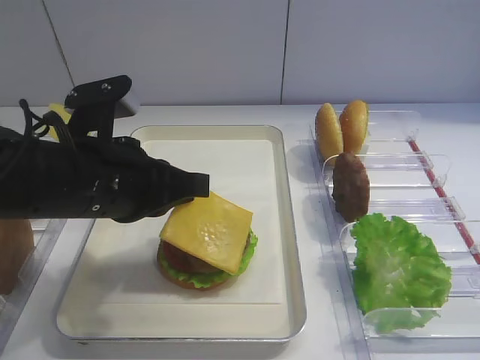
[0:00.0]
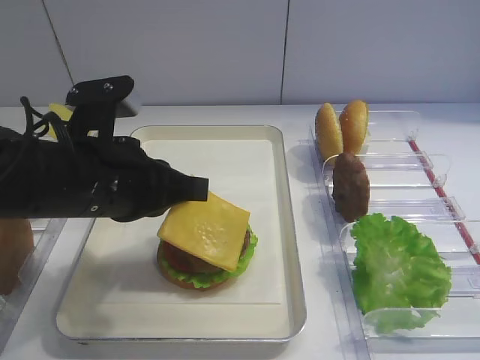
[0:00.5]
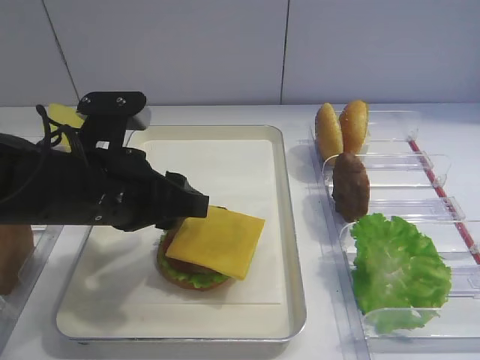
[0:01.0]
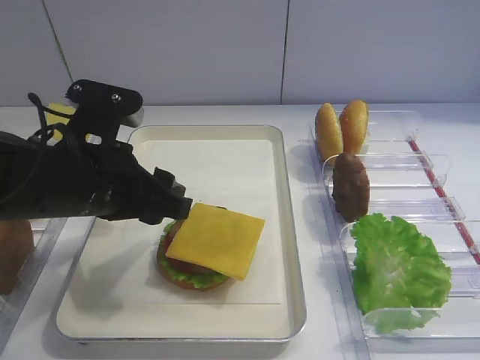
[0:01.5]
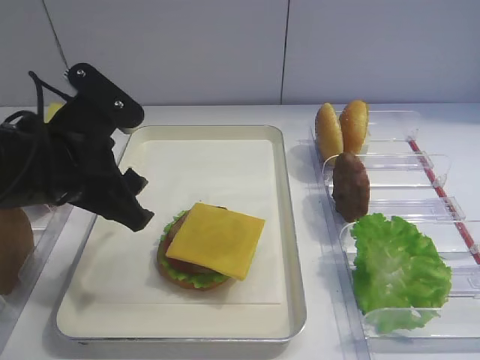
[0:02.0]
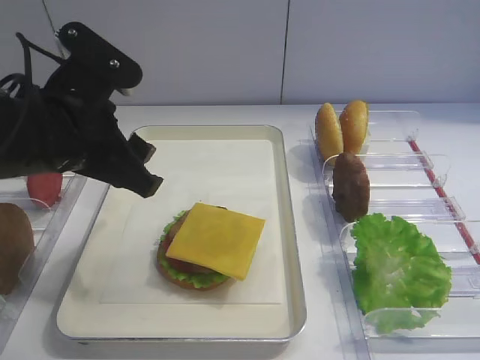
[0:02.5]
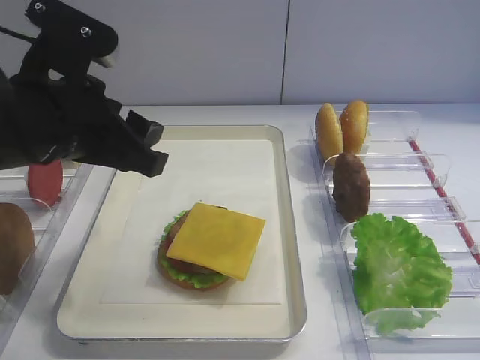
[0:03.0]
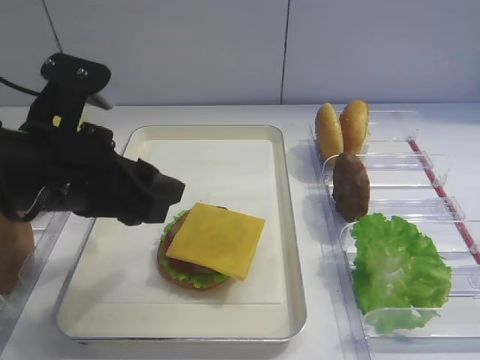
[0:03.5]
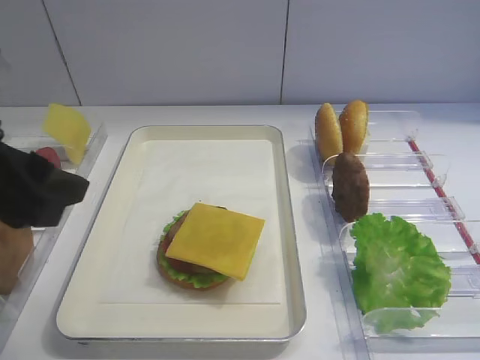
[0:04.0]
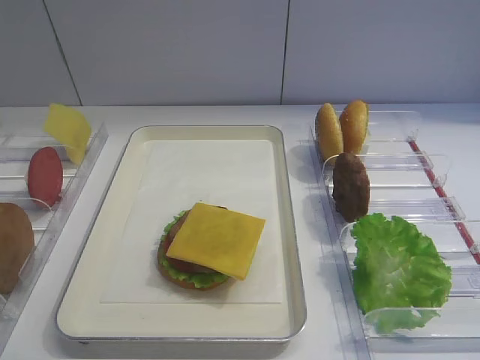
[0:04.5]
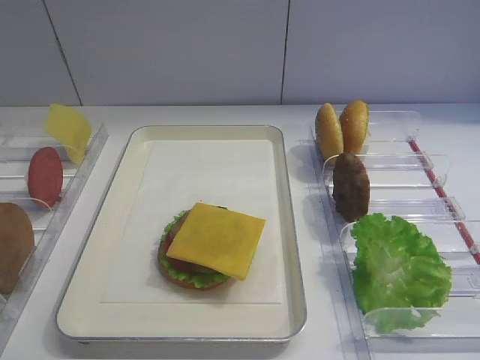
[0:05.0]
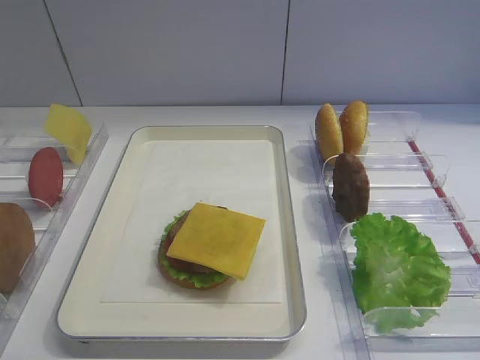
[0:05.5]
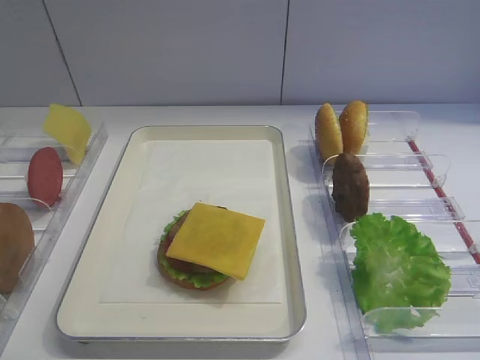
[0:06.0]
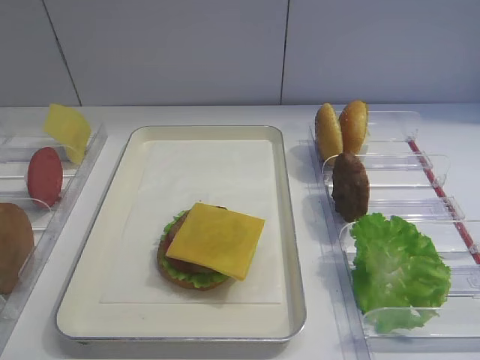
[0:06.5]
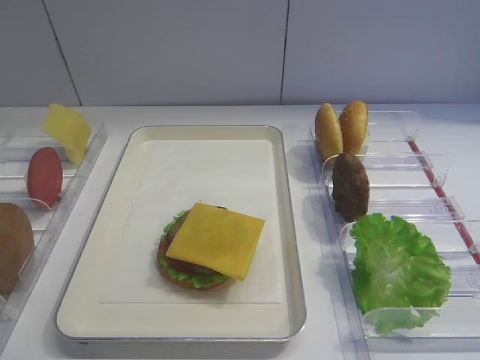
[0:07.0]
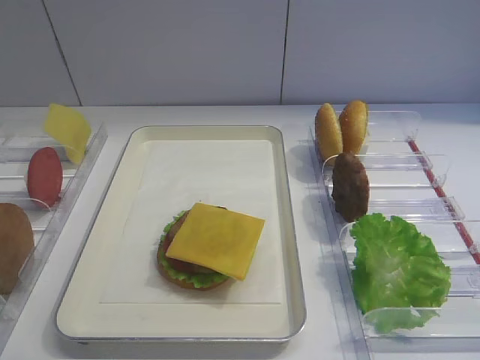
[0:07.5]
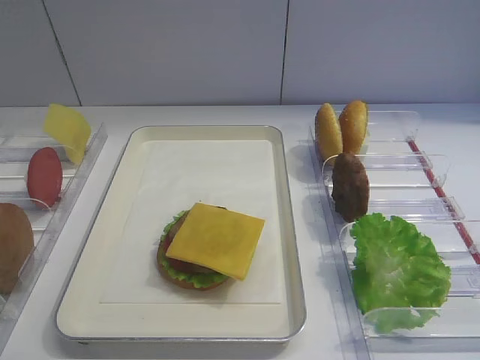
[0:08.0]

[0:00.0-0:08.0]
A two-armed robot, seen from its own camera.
Step, 0:00.0 to 0:02.5: Place the cheese slice on the cutlet with the left gripper.
0:00.0 to 0:02.0: The left gripper opens its fingers.
0:02.0 to 0:04.0: The left gripper heads backward, to the left and upward, covering roughly 10 cm.
0:04.0 to 0:06.0: The left gripper travels backward and to the left by some 20 cm.
0:06.0 to 0:08.0: Both grippers stay put.

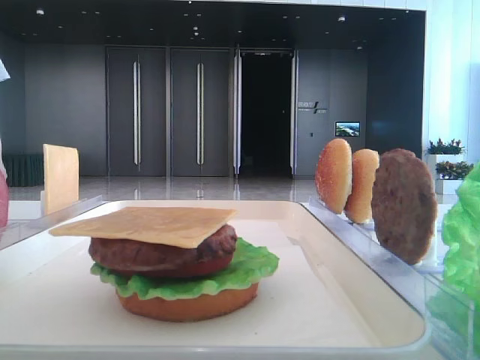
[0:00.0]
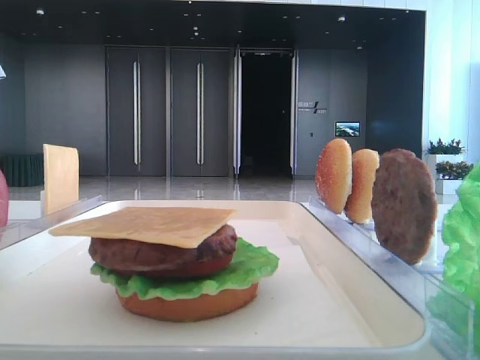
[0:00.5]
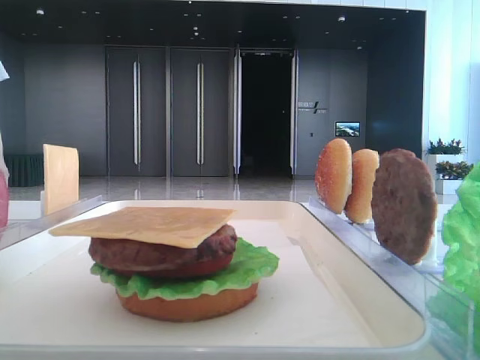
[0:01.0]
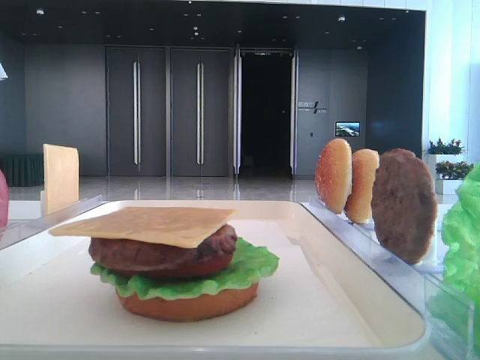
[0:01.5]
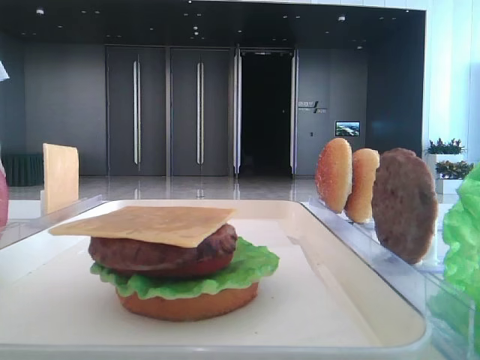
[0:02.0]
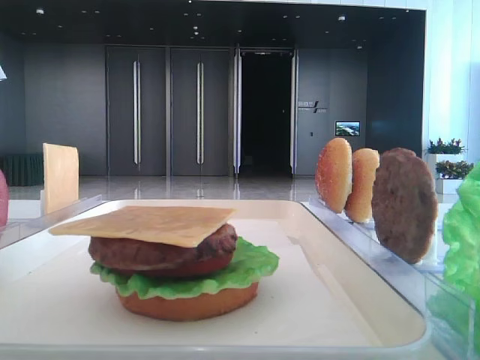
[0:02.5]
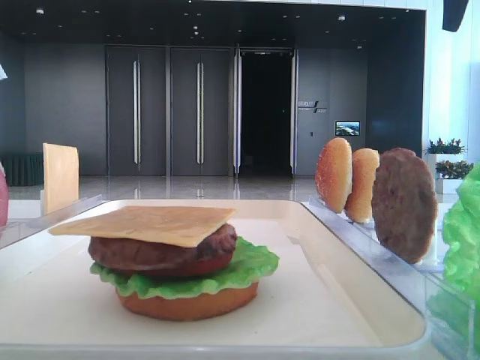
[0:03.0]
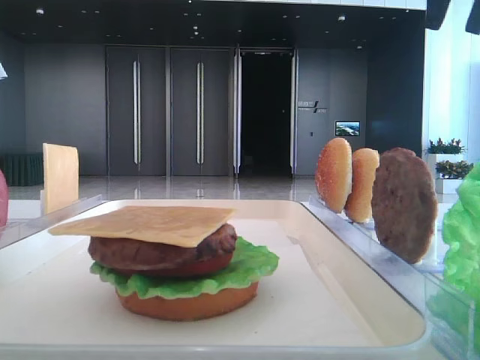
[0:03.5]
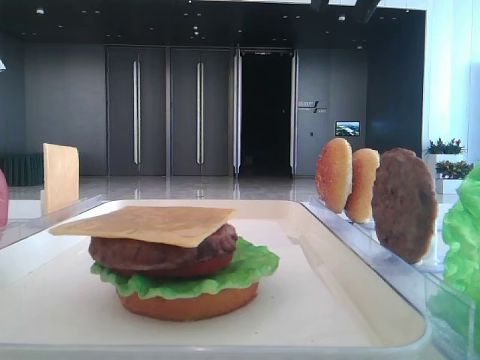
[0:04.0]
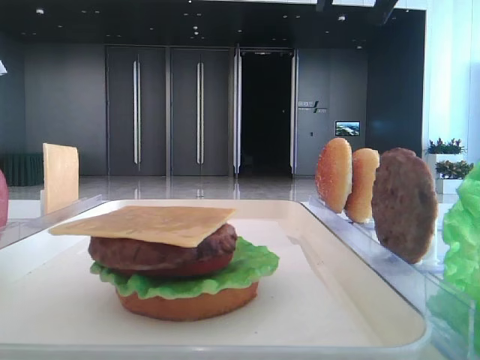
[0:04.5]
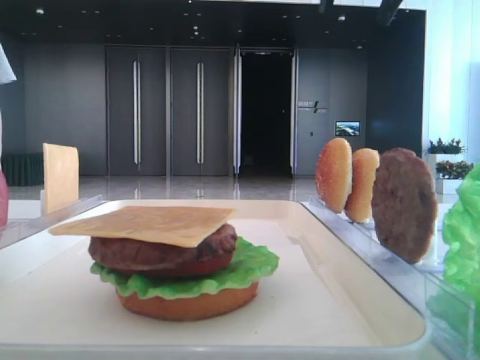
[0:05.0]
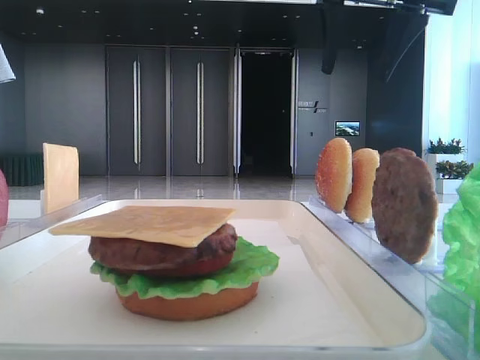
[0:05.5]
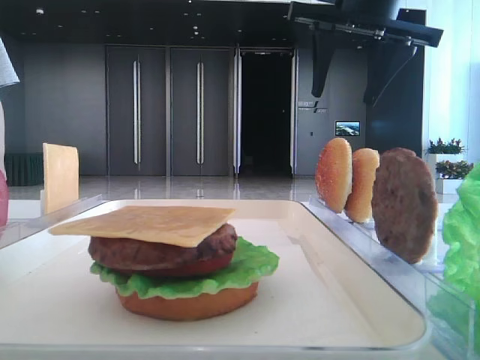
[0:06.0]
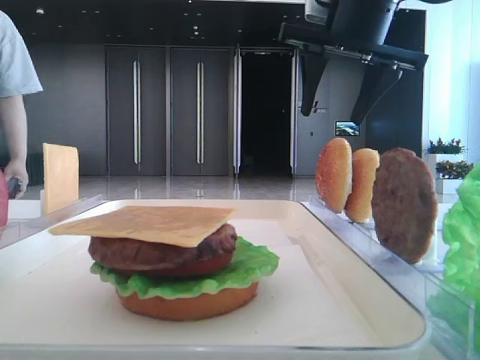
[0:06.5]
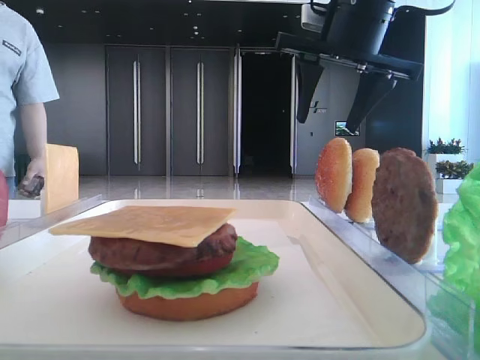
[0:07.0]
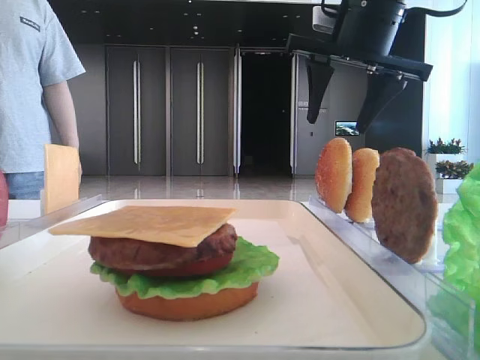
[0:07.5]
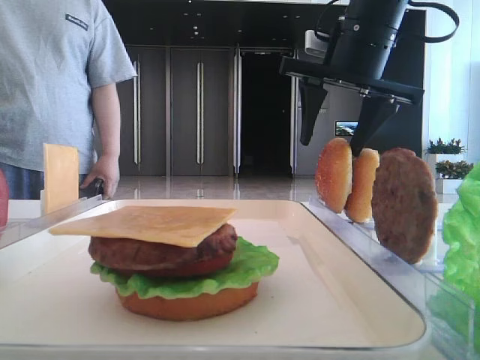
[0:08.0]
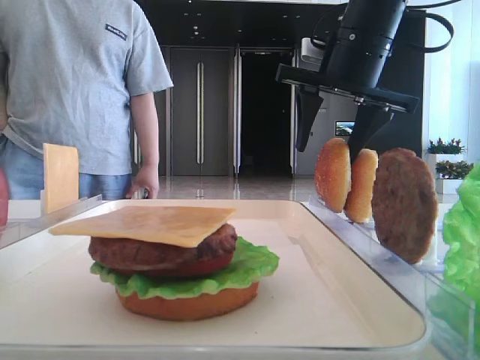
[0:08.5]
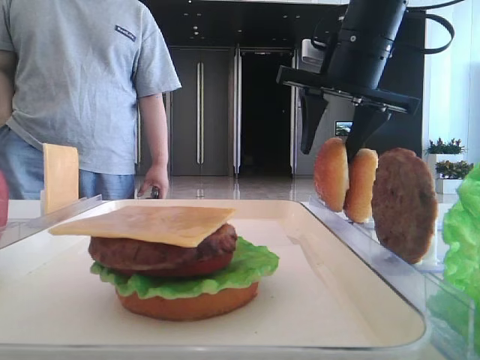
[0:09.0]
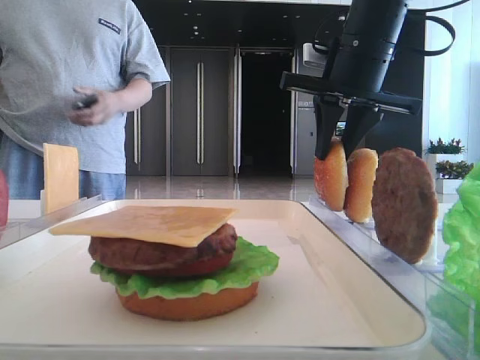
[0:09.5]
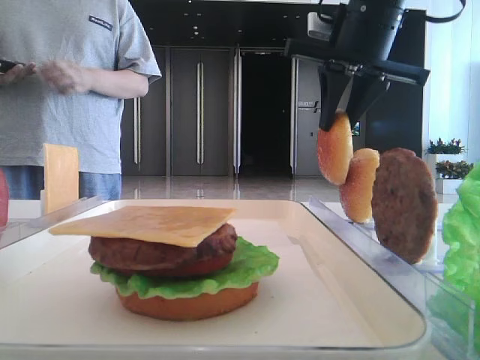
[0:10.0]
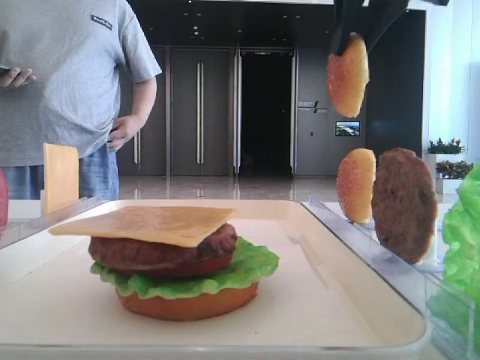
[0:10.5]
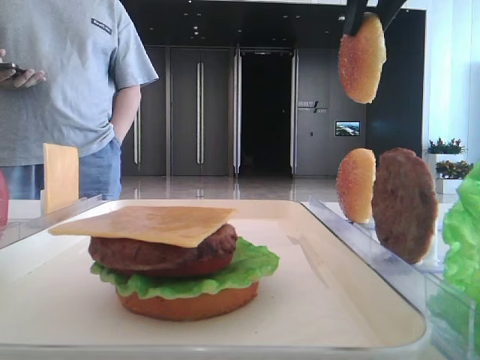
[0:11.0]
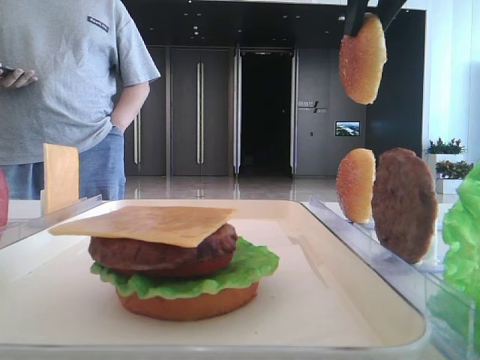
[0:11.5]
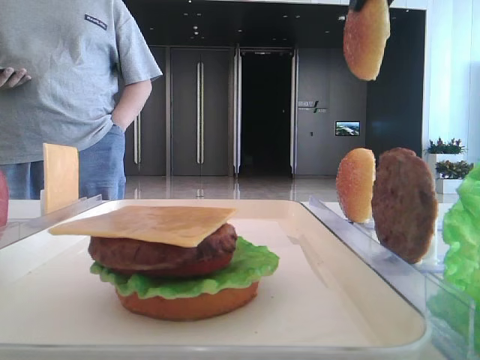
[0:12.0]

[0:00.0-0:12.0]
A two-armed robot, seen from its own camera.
Step, 0:00.0 to 0:09.5: Pick up the top bread slice with the right hand.
0:04.0 to 0:06.0: The right gripper is displaced downward and forward by about 10 cm.
0:06.0 to 0:08.0: The right gripper goes approximately 5 cm downward.
0:08.0 to 0:10.0: The right gripper closes its fingers.
0:10.0 to 0:12.0: The right gripper travels upward and backward by about 15 cm.

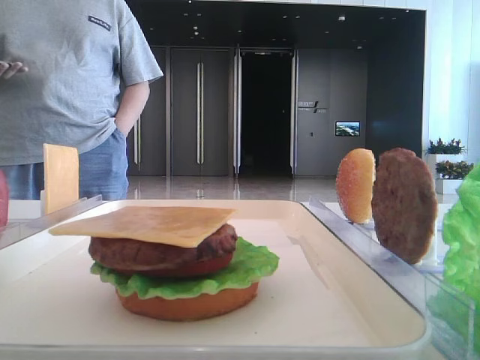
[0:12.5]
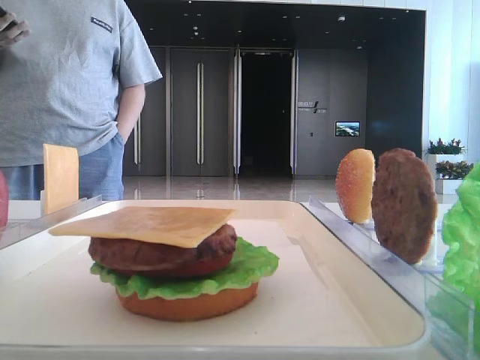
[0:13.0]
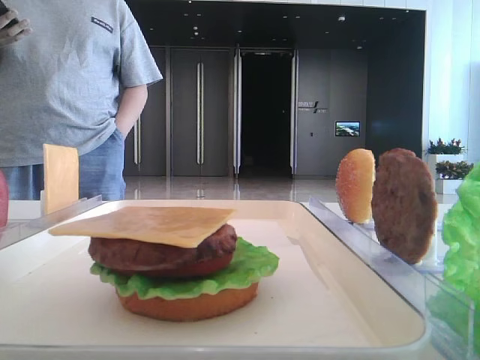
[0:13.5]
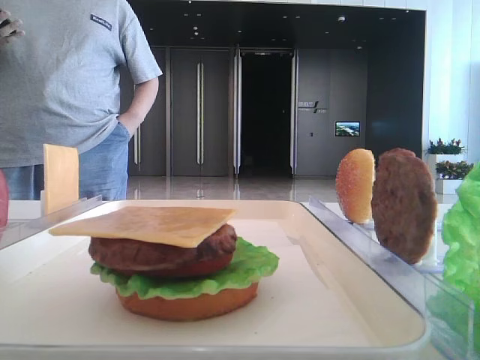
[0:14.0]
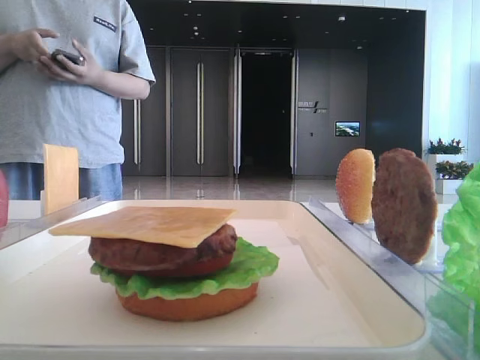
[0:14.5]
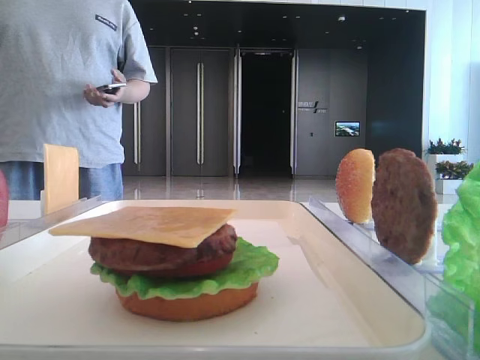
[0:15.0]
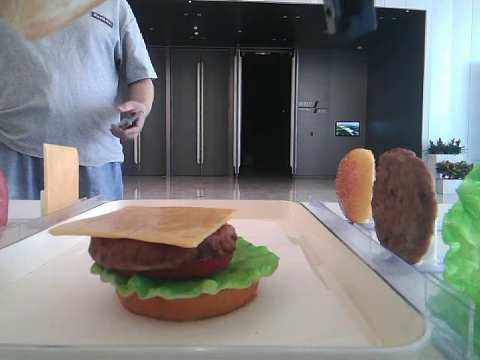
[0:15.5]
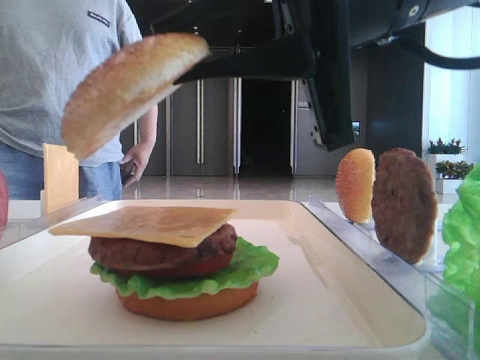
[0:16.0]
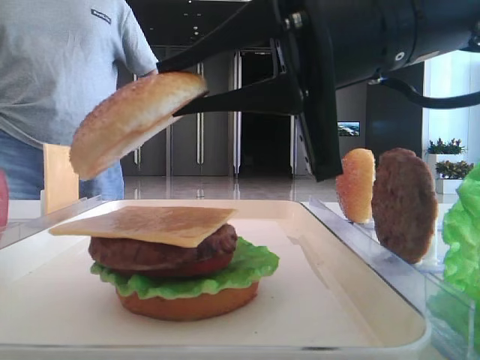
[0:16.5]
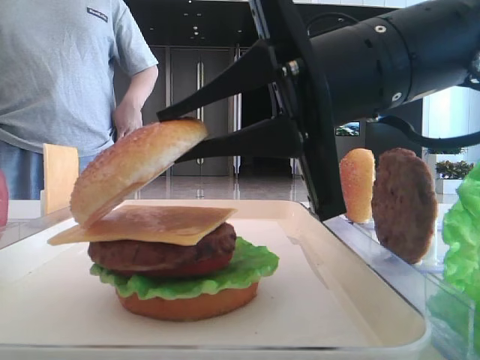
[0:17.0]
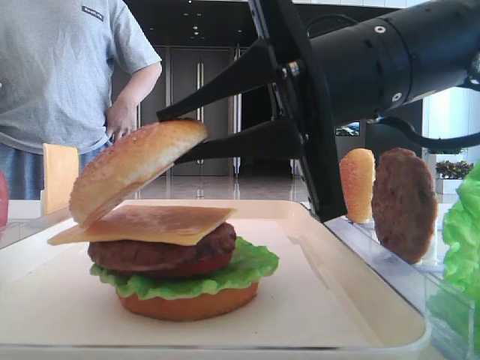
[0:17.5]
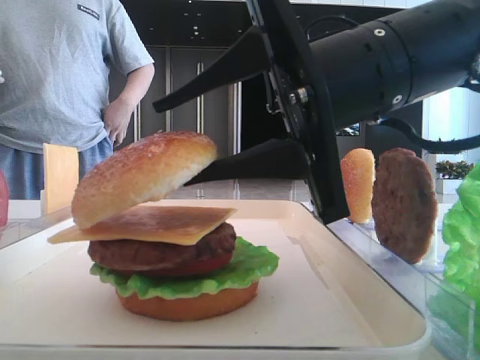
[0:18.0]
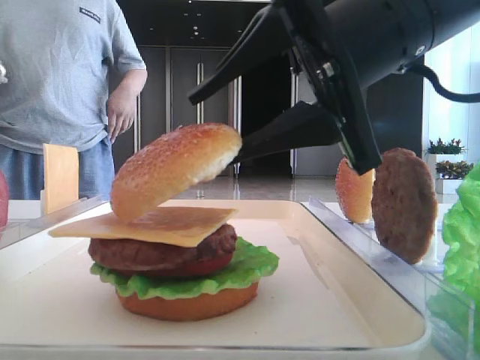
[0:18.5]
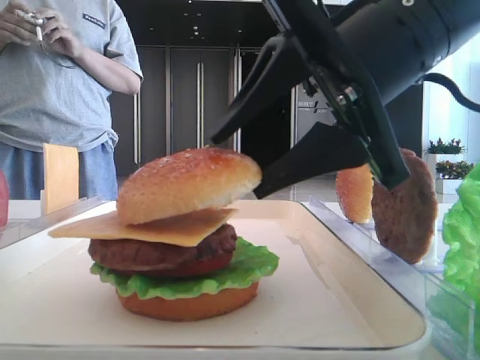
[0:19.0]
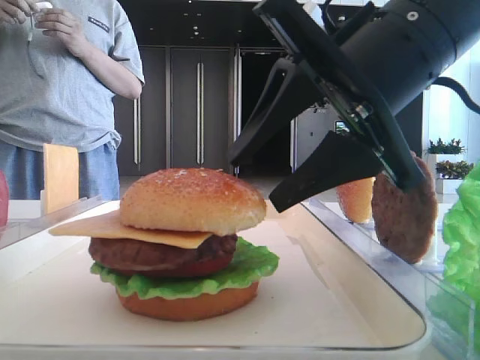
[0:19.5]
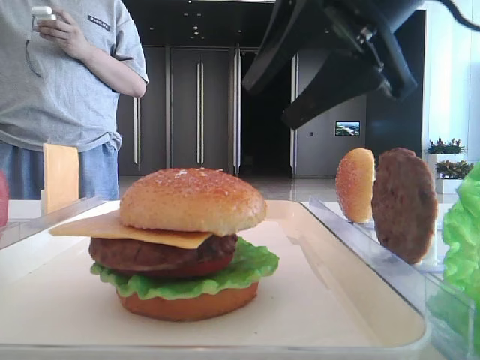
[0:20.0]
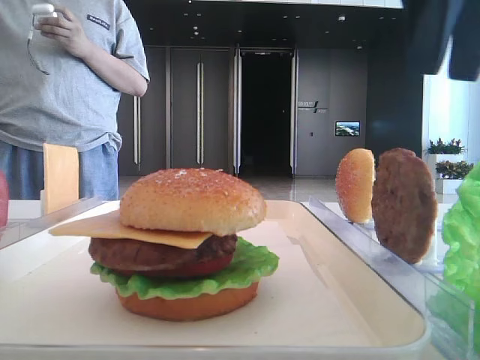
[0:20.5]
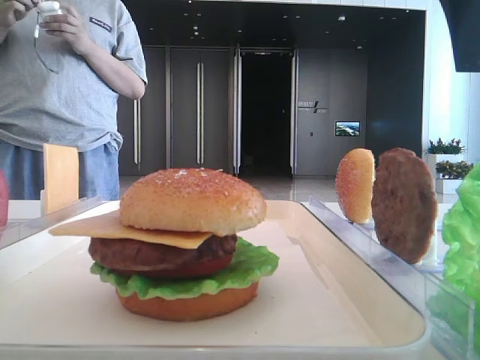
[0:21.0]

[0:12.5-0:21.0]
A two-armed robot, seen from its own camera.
Step, 0:12.5 to 0:19.0: Place the top bread slice on the cheese with the right hand.
0:14.5 to 0:16.5: The right gripper goes some 25 cm downward, forward and to the left.
0:16.5 to 0:19.0: The right gripper opens.
0:19.0 to 0:21.0: The right gripper travels upward and to the right by about 15 cm.
